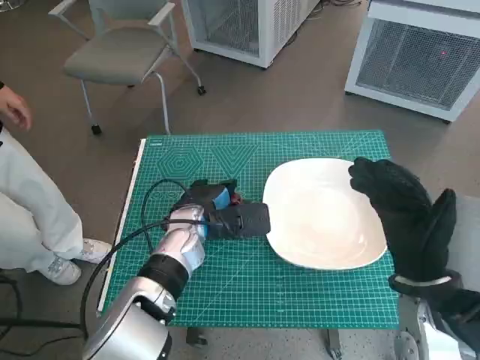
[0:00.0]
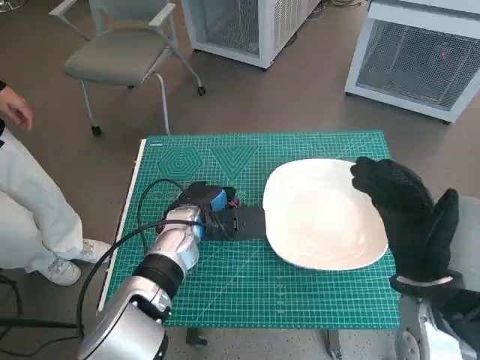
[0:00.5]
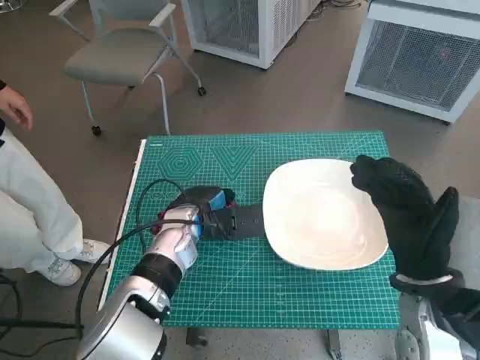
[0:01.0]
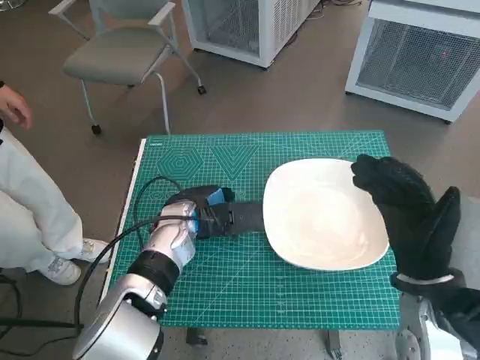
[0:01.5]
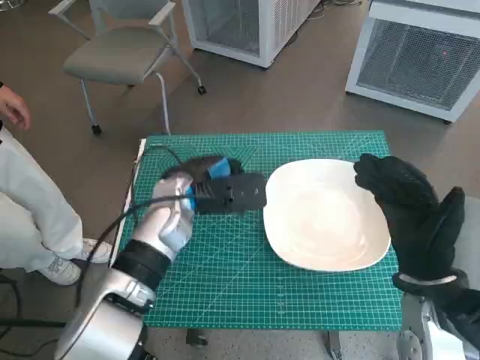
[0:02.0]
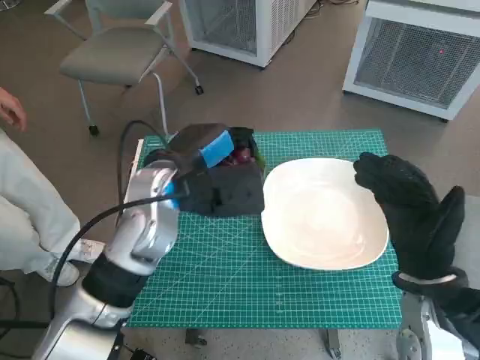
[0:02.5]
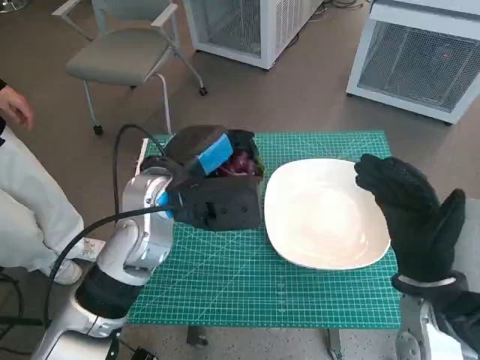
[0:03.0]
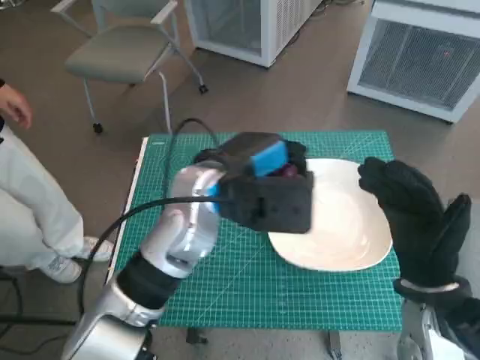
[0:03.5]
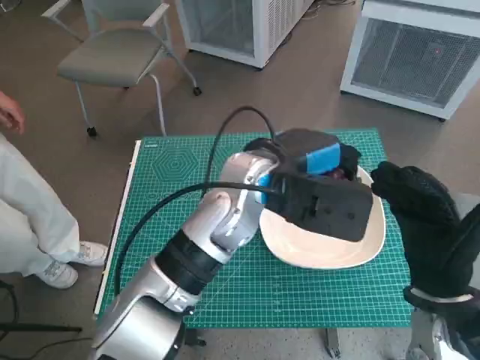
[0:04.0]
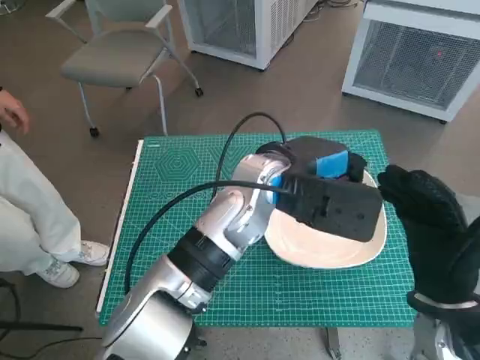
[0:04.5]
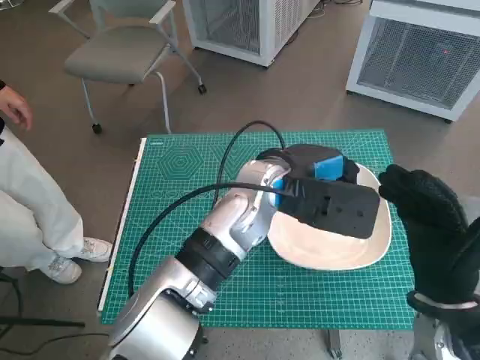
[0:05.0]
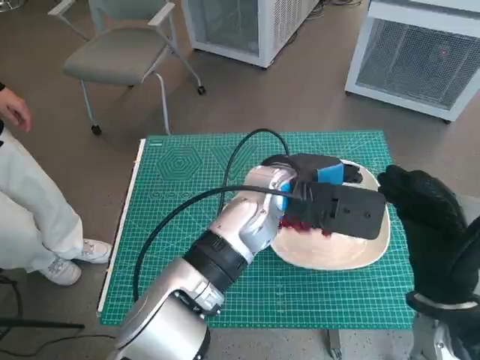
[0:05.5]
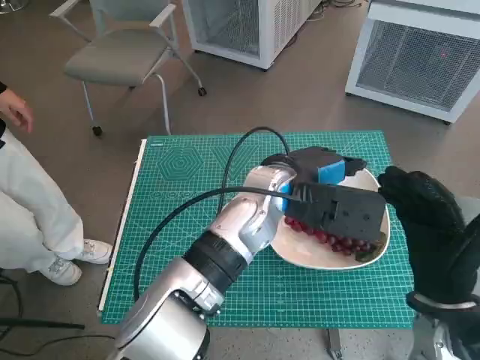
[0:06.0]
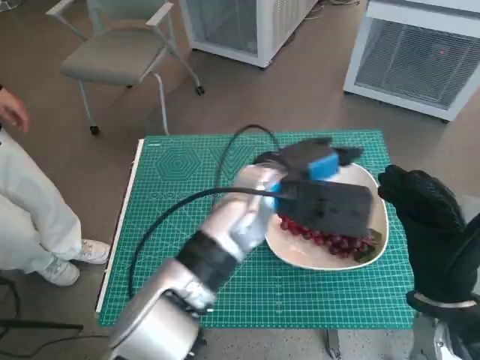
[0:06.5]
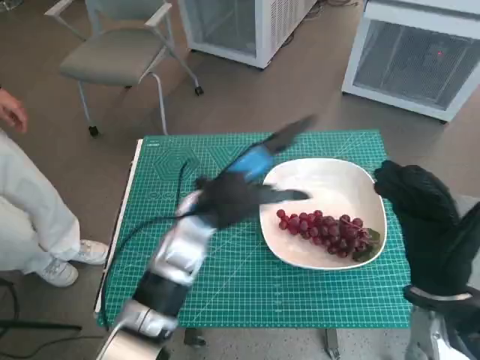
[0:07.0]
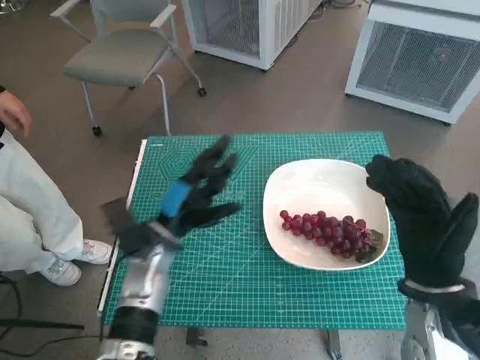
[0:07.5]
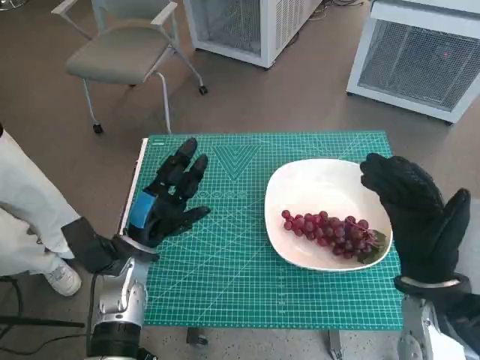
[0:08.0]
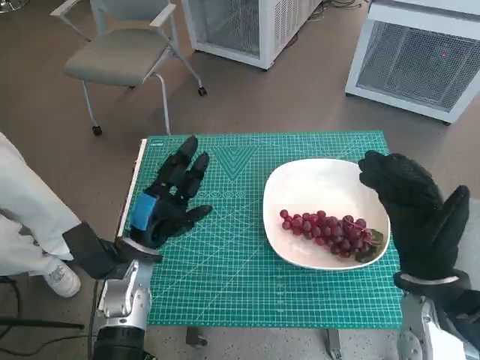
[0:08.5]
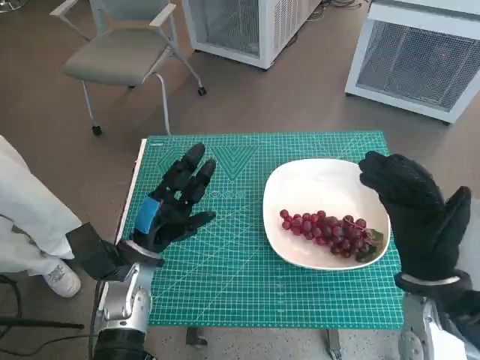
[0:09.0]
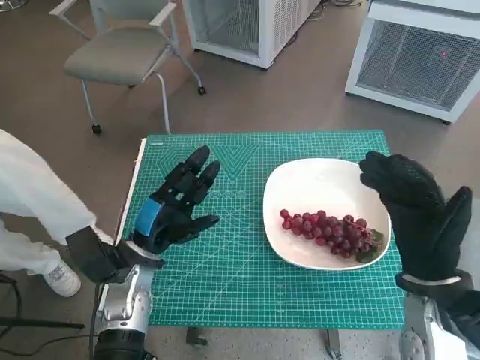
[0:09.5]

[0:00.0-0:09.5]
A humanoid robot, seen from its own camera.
Task of the whole recording: Pick up the grapes and put them on the plate.
Step, 0:00.0 to 0:05.5: Place the grapes in the plate with left hand.
0:00.0 to 0:02.0: The left hand is displaced upward by approximately 5 cm.
0:02.0 to 0:04.0: The left hand goes roughly 15 cm to the right and upward.
0:05.5 to 0:07.5: The left hand heads to the left and downward, covering approximately 20 cm.
0:07.5 to 0:09.5: There are only small adjustments of the hands.

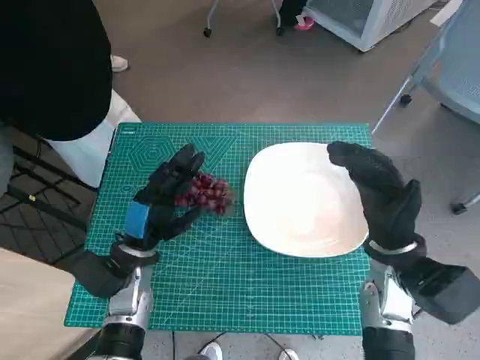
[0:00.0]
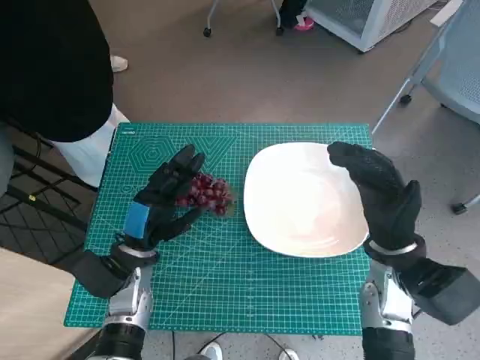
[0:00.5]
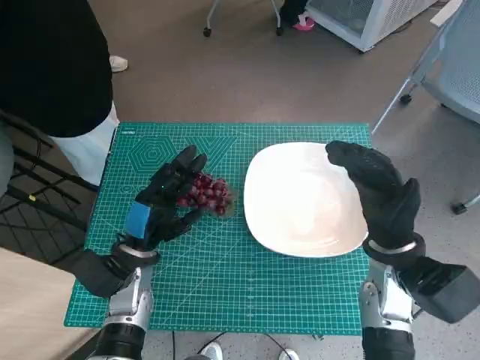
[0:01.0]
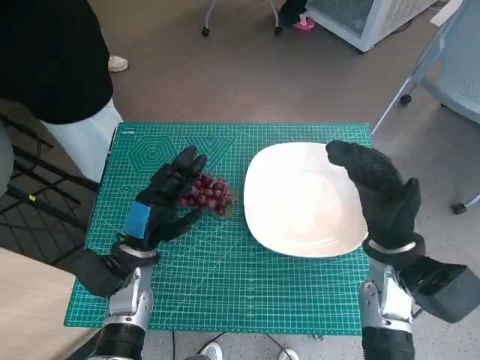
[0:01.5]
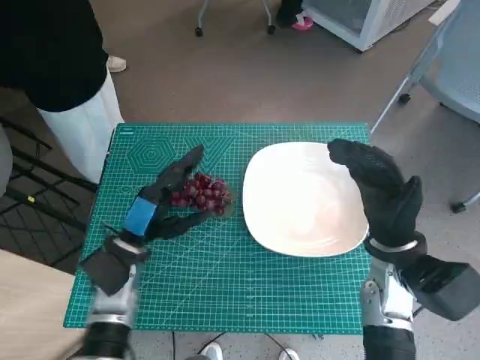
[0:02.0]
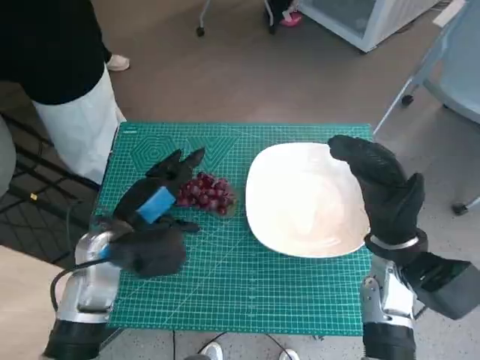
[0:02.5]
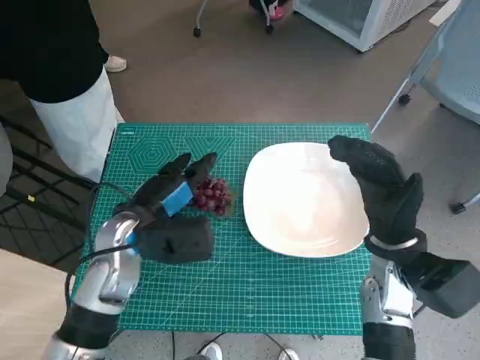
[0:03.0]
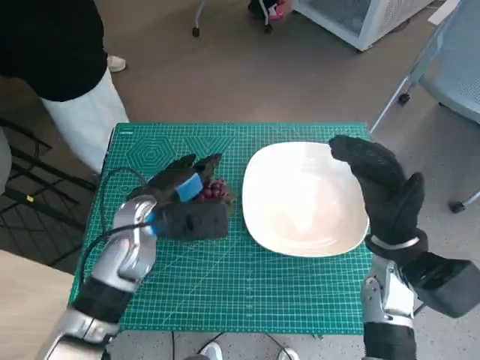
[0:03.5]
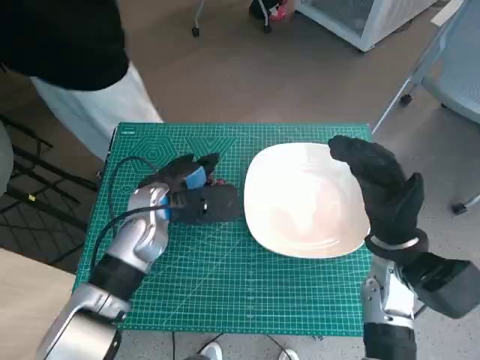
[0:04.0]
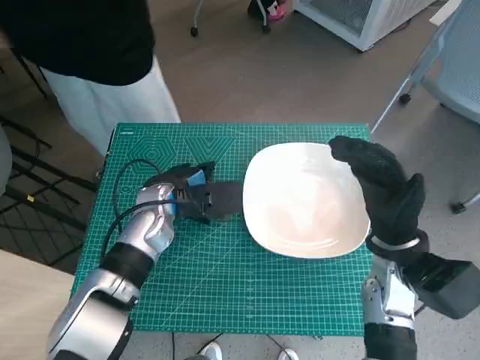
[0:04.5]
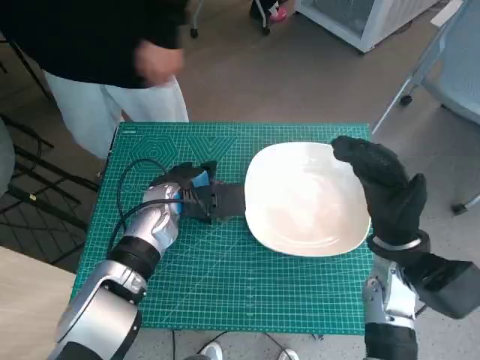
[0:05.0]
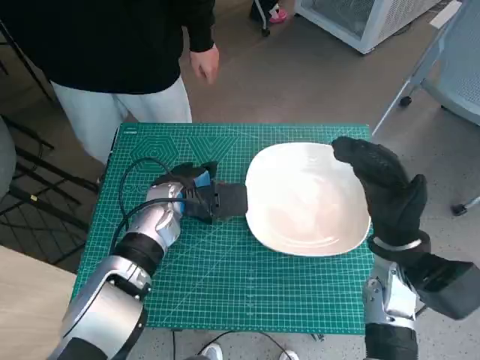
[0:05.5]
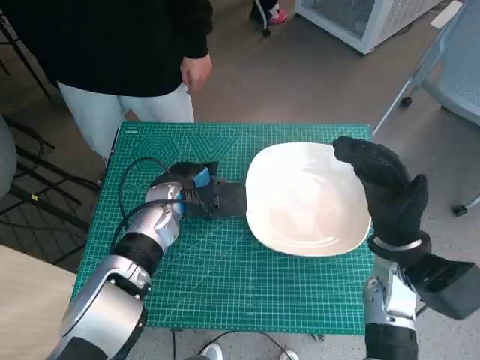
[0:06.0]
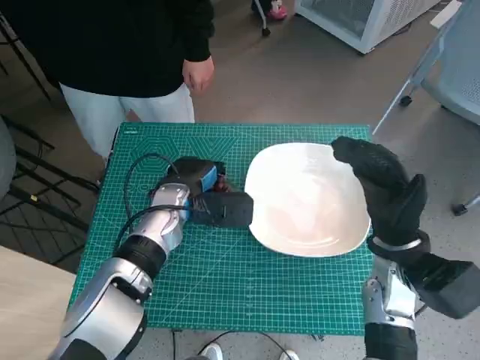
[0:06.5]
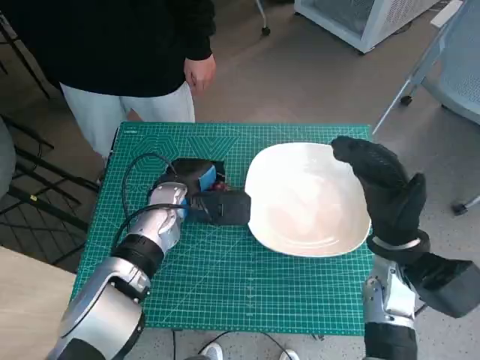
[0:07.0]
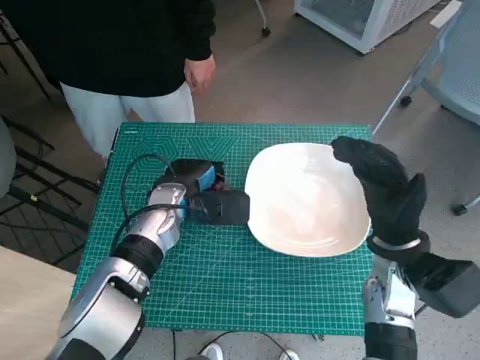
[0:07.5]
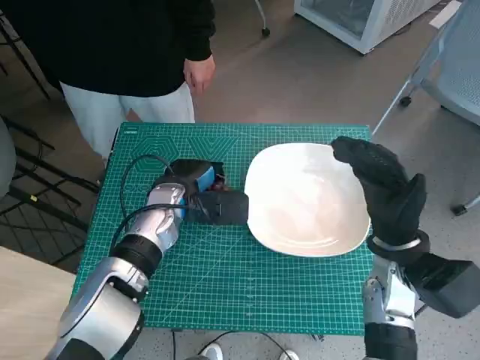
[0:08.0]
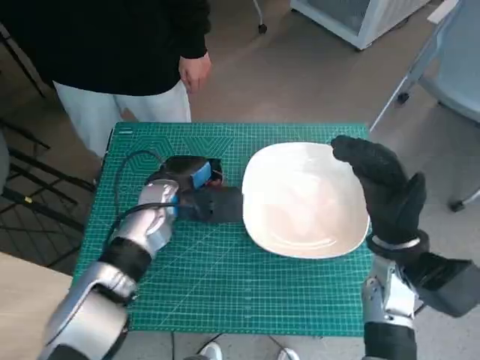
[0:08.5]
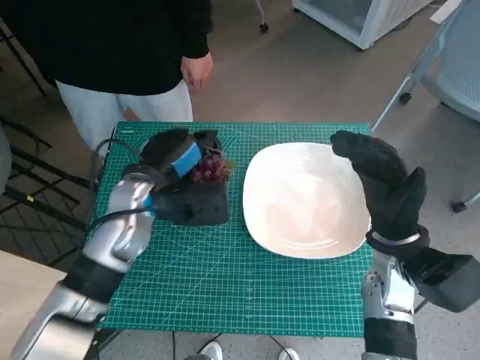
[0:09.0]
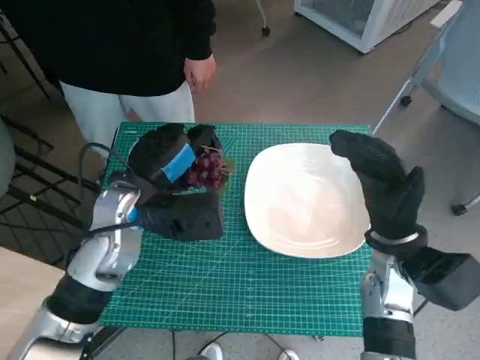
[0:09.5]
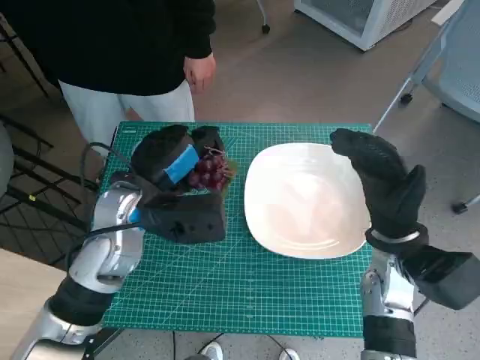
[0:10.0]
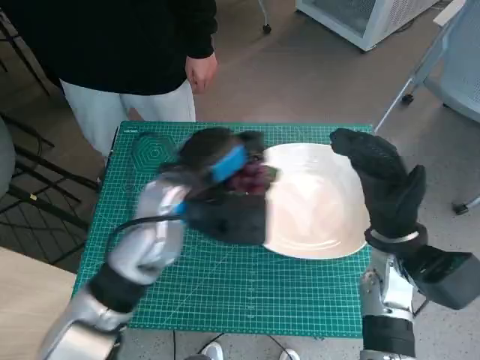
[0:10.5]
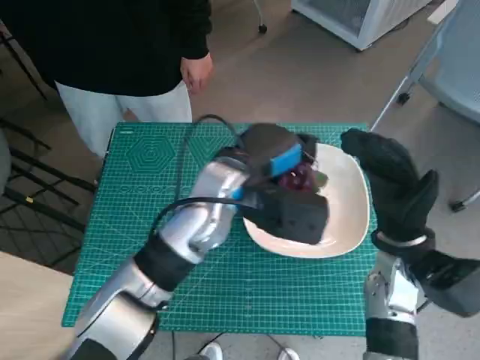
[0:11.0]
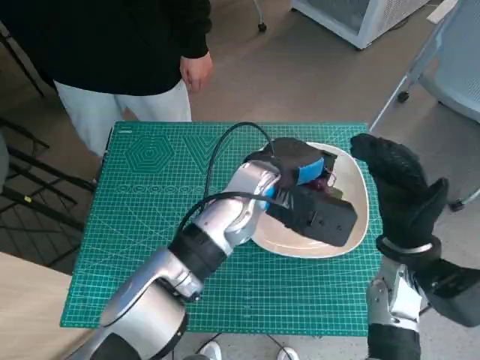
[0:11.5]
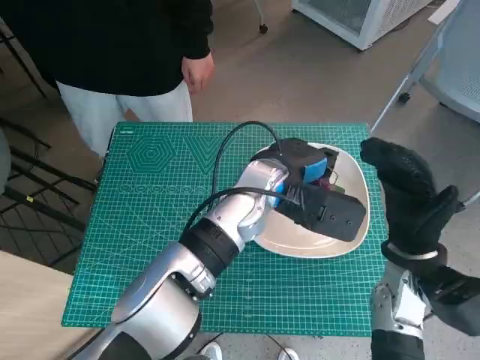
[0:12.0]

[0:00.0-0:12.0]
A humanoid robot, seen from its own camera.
Task of the whole recording: Pick up the grapes and put them on the plate.
Step, 0:00.0 to 0:06.5: Grasp the grapes with left hand.
0:02.0 to 0:04.0: The left hand travels forward and upward by approximately 10 cm.
0:06.0 to 0:08.0: The hands make only small movements.
0:08.0 to 0:10.0: The left hand goes some 10 cm upward and backward.
0:10.0 to 0:12.0: The left hand goes approximately 15 cm to the right.

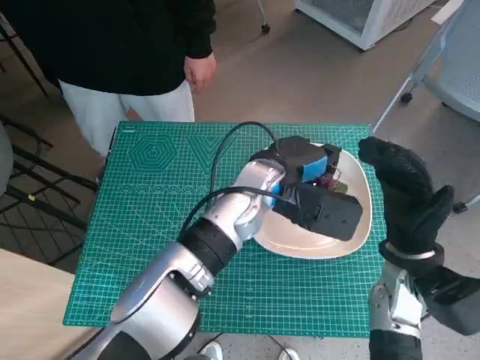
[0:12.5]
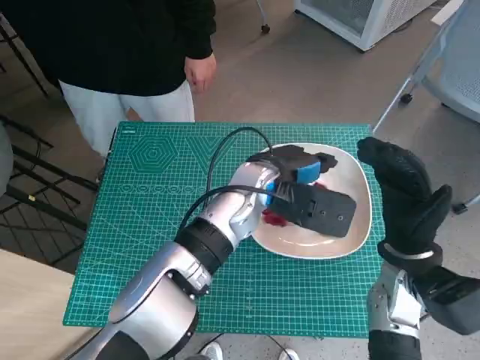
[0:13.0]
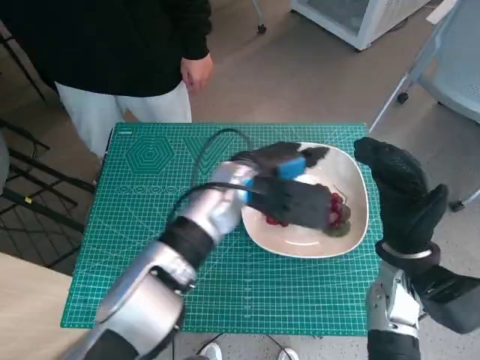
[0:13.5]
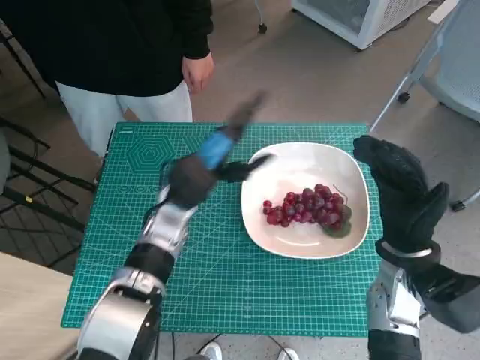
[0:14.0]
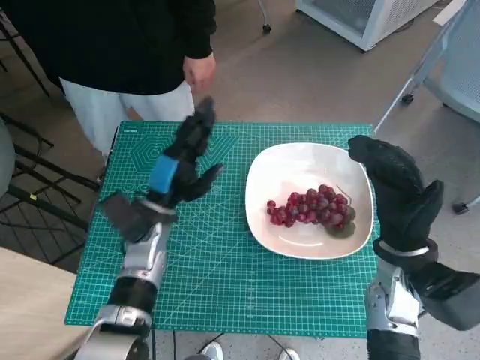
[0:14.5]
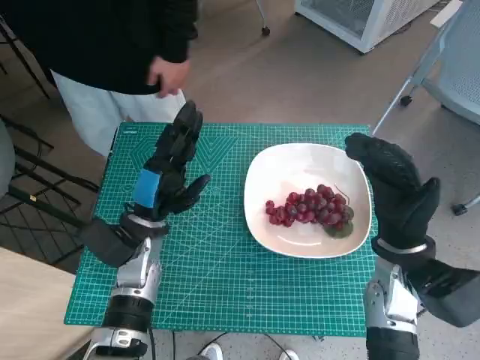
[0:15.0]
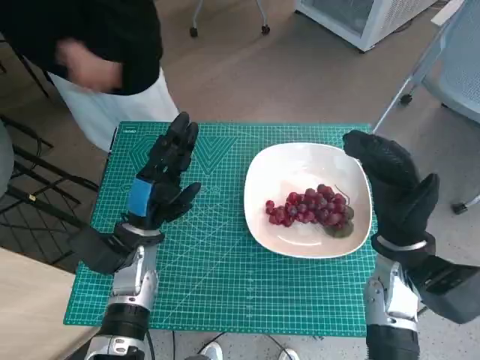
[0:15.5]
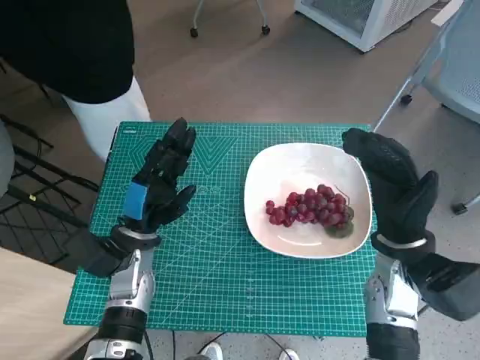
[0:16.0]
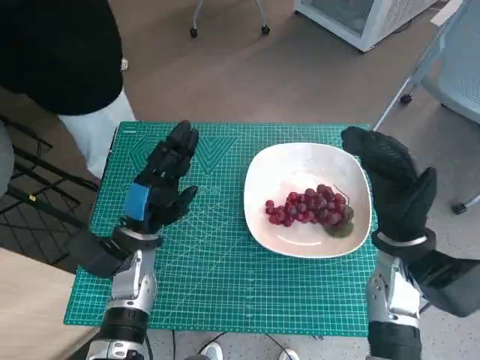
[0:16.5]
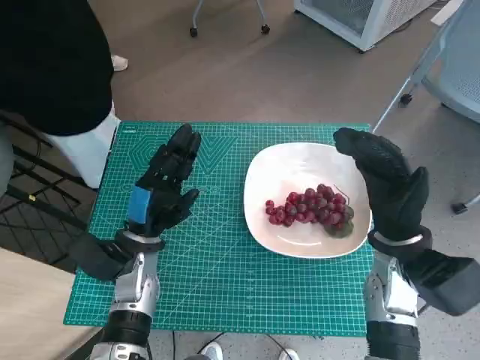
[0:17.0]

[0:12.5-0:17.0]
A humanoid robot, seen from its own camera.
Task of the whole recording: Pick up the grapes and put them on the plate.
0:12.5 to 0:14.5: The left hand goes some 20 cm to the left and downward.
0:14.5 to 0:17.0: The left hand moves approximately 5 cm.
